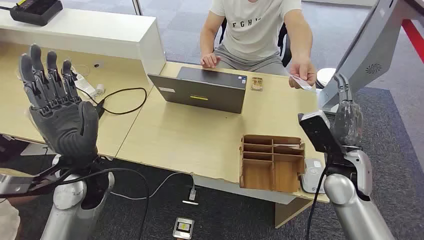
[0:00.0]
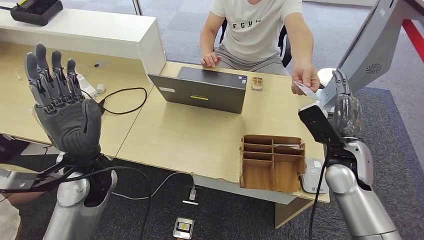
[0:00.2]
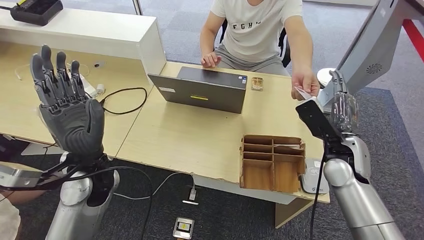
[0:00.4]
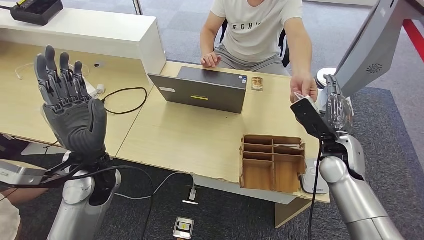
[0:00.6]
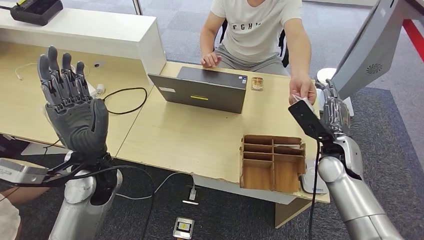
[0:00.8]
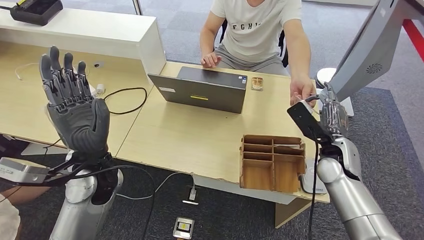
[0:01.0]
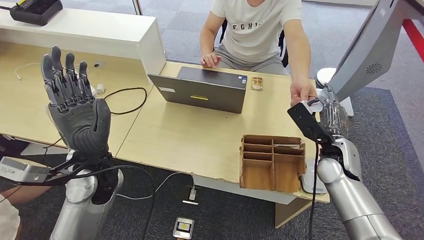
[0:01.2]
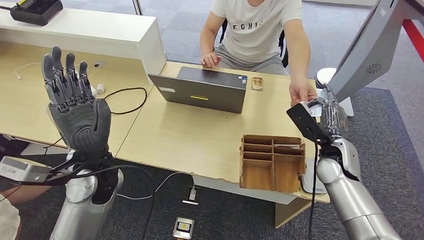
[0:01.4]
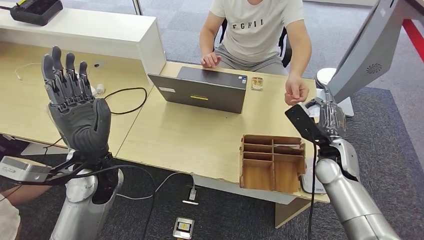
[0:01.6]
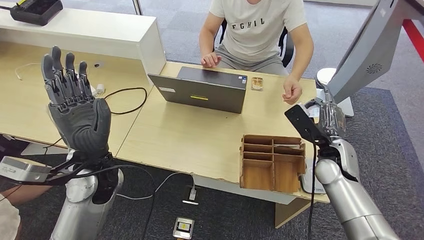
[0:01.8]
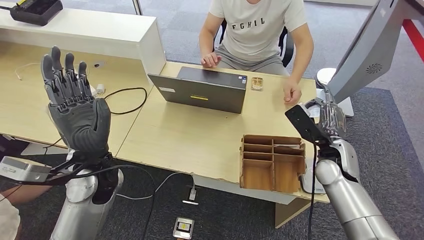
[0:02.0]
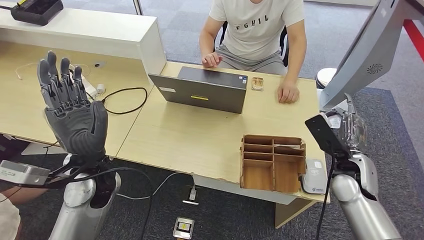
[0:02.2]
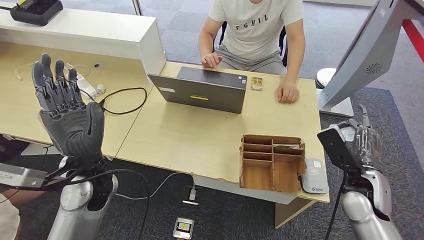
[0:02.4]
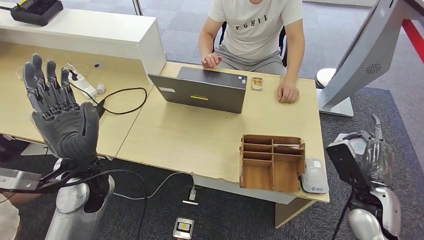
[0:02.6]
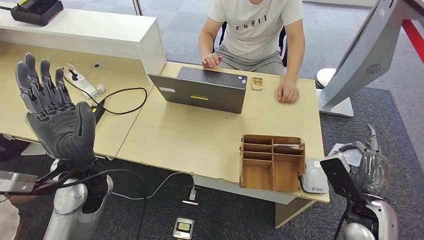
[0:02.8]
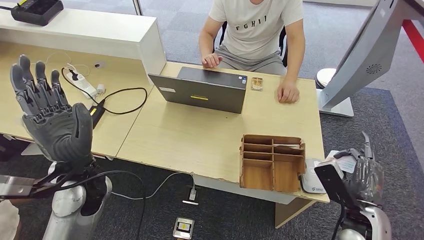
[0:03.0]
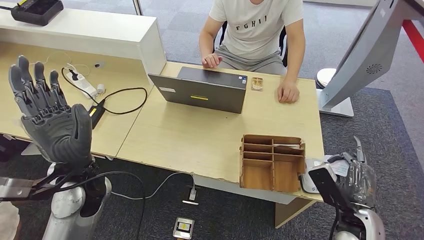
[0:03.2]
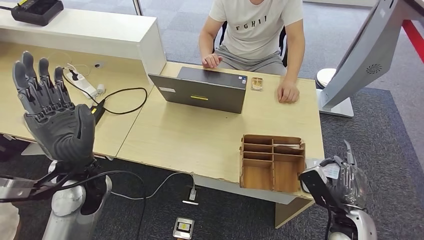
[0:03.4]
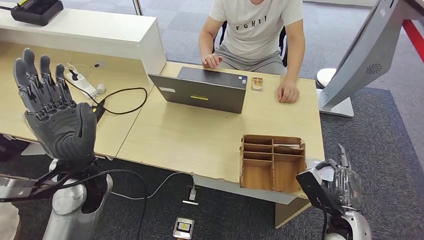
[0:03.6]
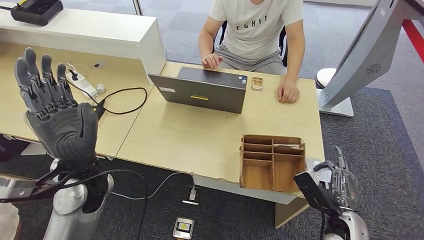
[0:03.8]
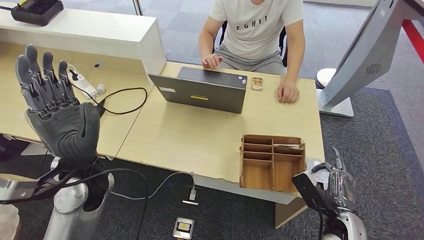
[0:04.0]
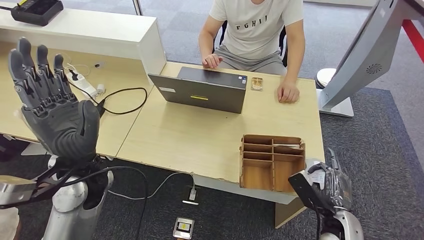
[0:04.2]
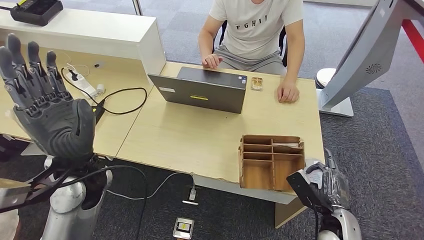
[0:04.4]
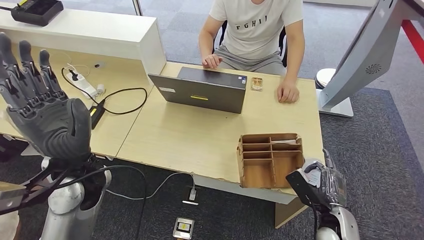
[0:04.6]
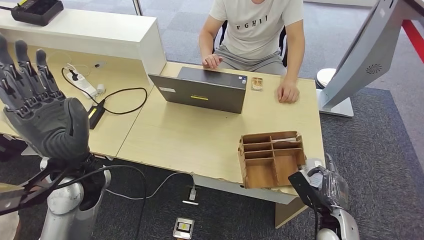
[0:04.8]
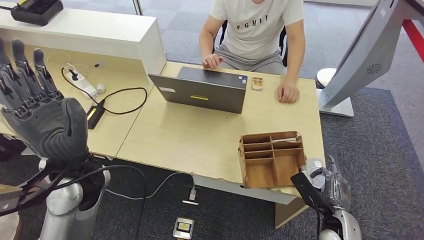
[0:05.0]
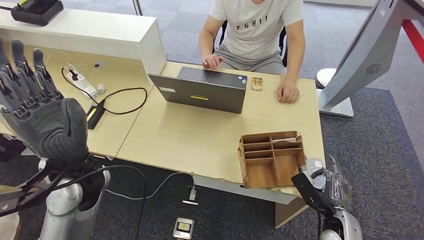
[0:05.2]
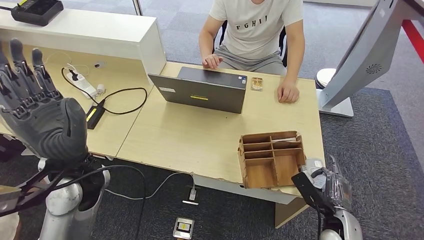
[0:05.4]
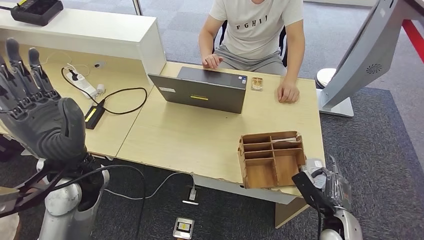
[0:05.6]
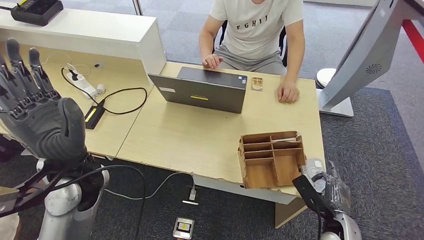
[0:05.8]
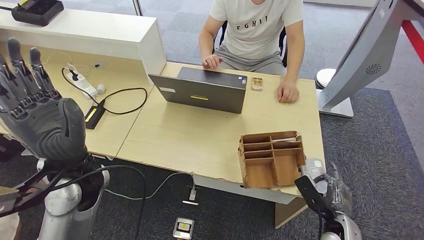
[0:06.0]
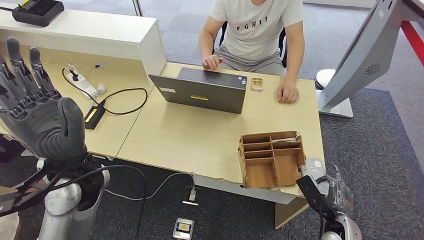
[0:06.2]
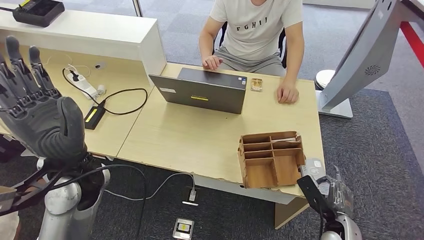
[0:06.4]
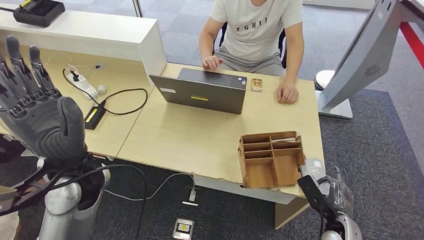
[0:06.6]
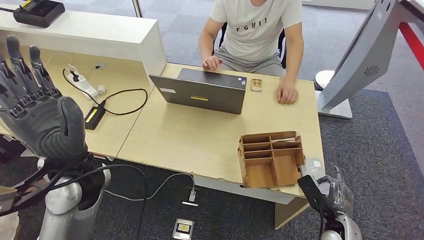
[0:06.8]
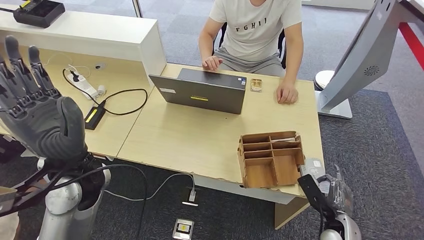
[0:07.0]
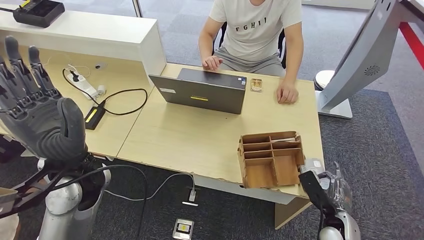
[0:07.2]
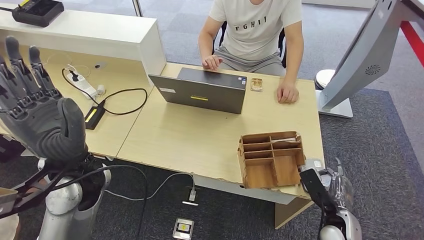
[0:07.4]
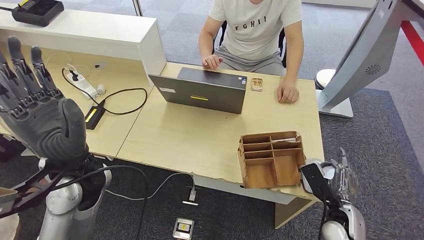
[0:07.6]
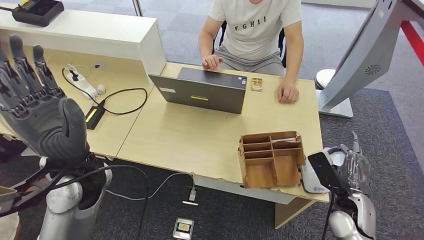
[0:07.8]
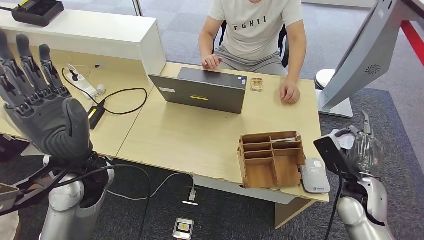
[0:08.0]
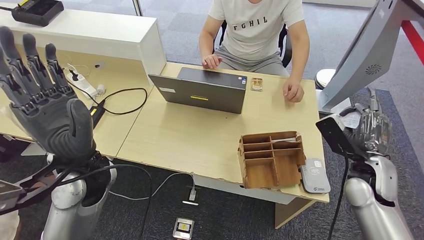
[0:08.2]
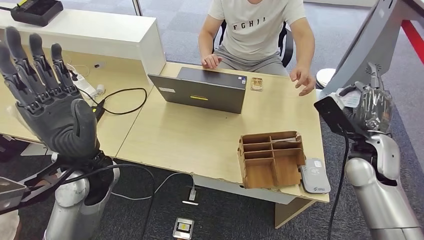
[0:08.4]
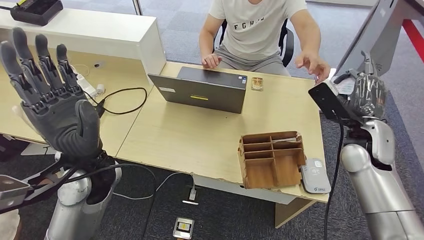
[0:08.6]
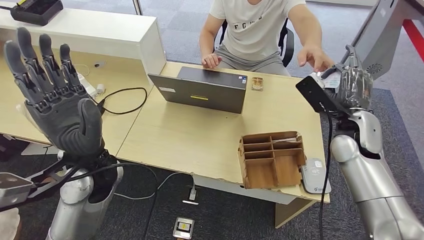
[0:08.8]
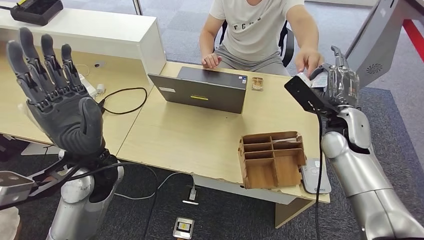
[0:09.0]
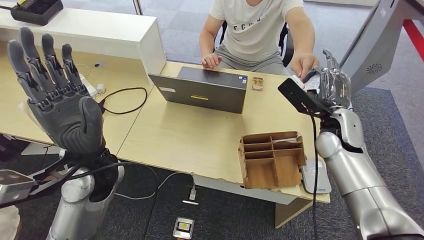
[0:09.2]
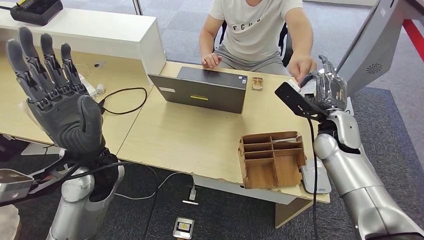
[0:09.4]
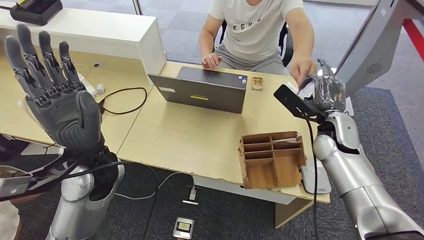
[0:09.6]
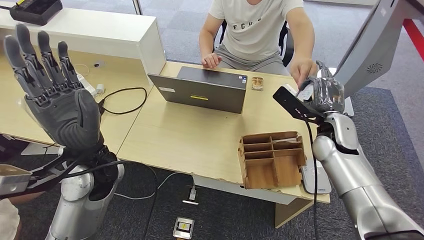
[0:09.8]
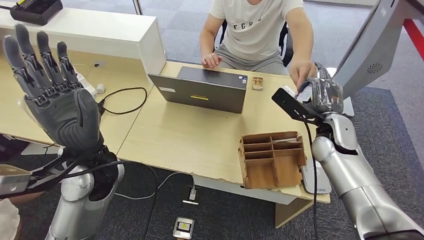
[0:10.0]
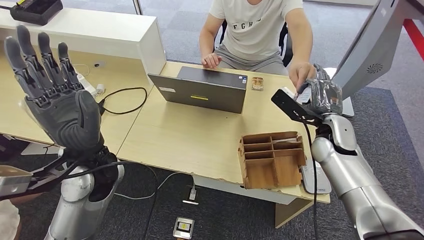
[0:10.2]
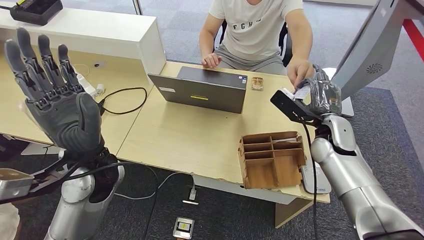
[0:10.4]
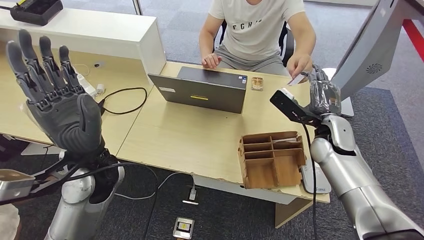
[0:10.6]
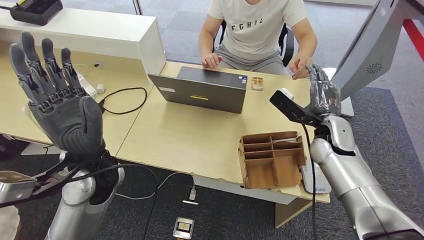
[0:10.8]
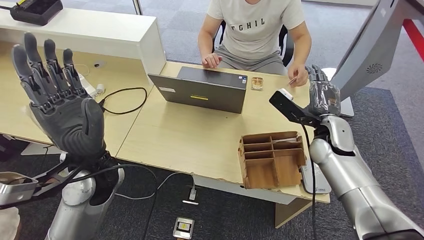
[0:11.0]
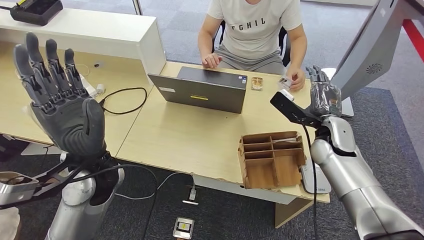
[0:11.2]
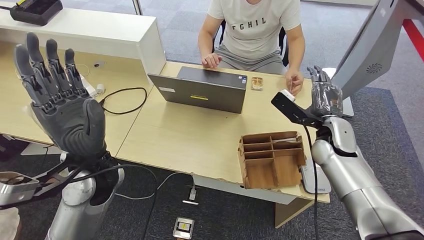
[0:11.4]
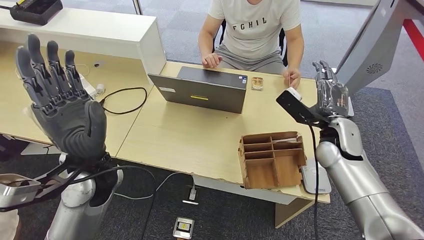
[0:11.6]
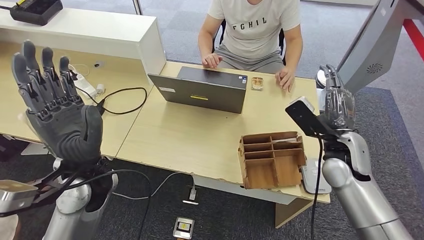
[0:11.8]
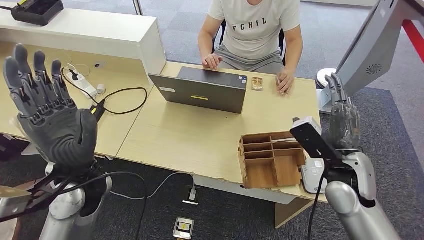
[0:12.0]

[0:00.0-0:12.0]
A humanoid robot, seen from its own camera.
Step, 0:00.0 to 0:01.8: Take the ID card from the person's hand.
Step, 0:02.2 to 0:08.0: Place the ID card on the card reader.
Step, 0:08.2 to 0:11.2: Hand the ID card to the person.
0:01.6 to 0:03.0: The right hand travels backward, to the right and downward by roughly 15 cm.
0:03.0 to 0:04.4: The right hand heads downward, covering approximately 5 cm.
0:04.4 to 0:06.0: The right hand changes place by approximately 5 cm.
0:06.0 to 0:07.6: The hands make only small movements.
0:09.0 to 0:10.4: There are only small adjustments of the hands.

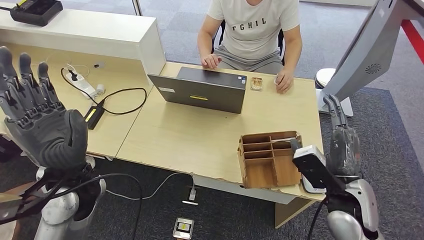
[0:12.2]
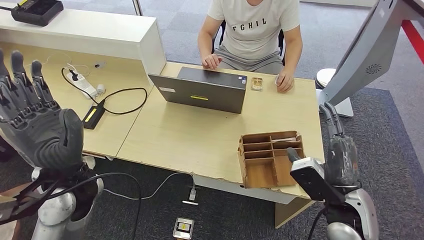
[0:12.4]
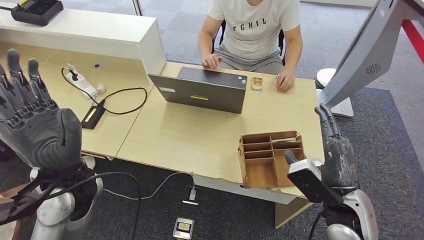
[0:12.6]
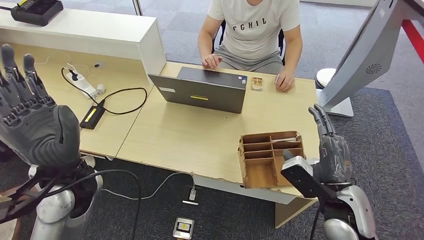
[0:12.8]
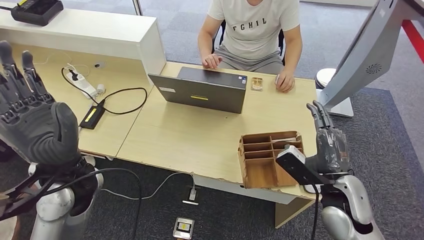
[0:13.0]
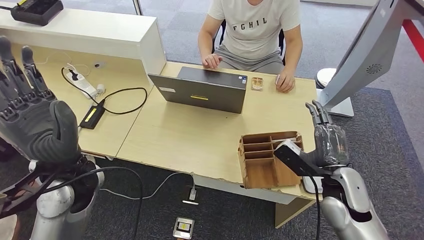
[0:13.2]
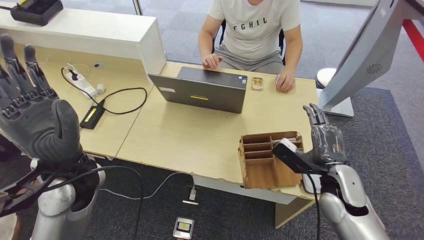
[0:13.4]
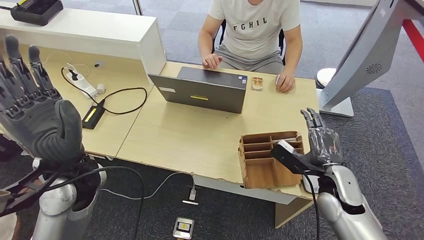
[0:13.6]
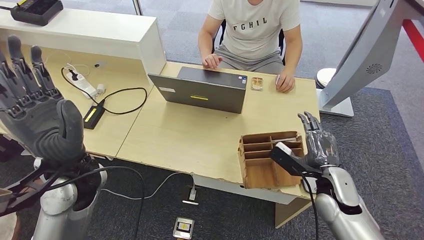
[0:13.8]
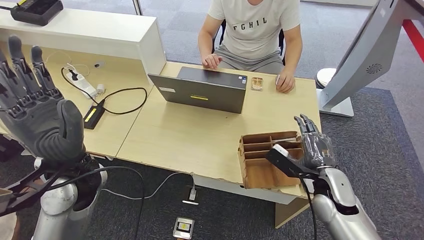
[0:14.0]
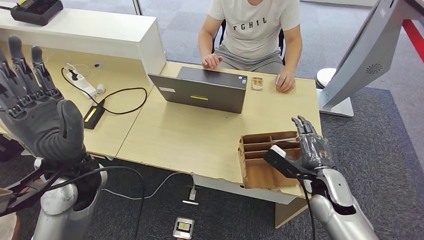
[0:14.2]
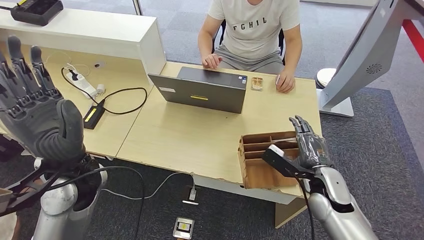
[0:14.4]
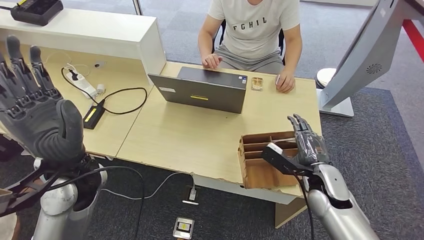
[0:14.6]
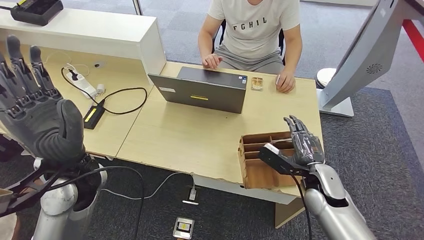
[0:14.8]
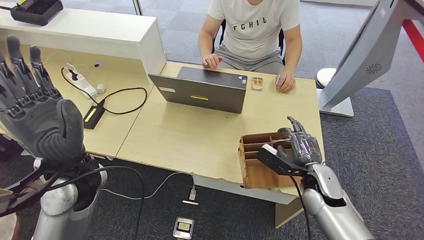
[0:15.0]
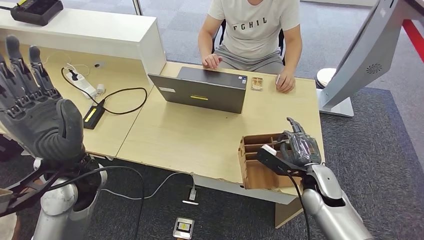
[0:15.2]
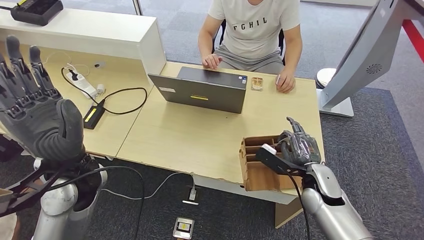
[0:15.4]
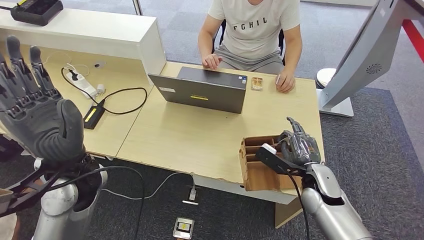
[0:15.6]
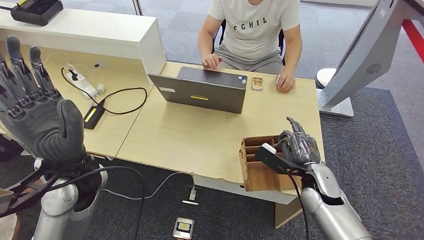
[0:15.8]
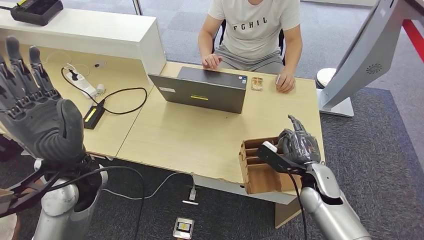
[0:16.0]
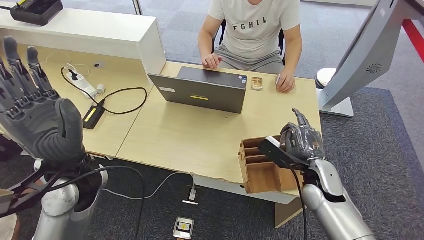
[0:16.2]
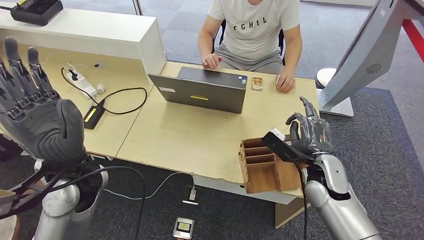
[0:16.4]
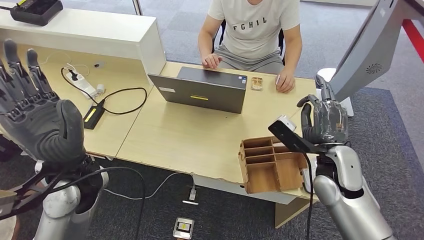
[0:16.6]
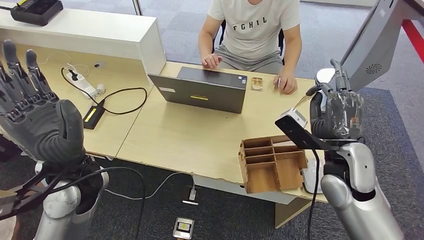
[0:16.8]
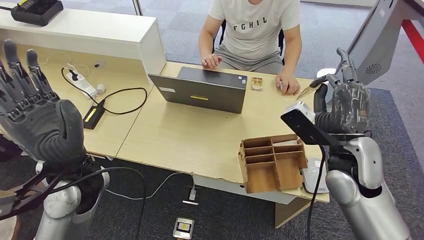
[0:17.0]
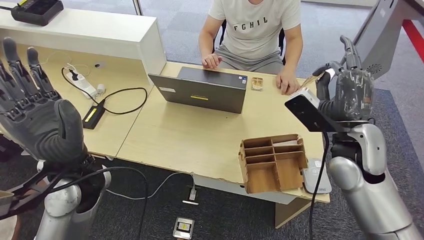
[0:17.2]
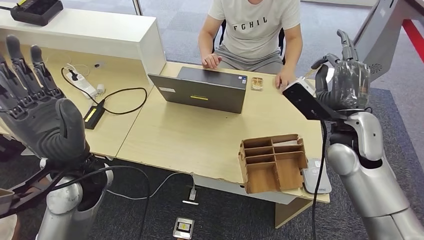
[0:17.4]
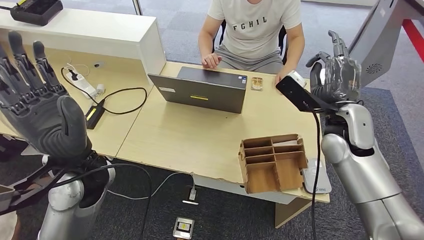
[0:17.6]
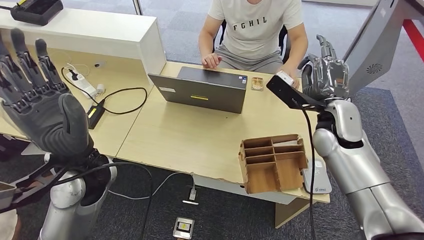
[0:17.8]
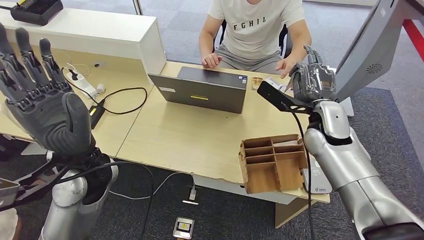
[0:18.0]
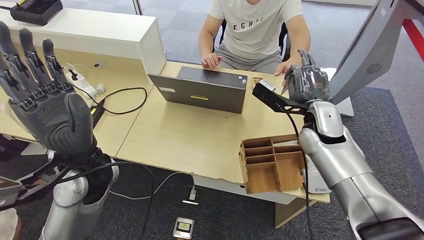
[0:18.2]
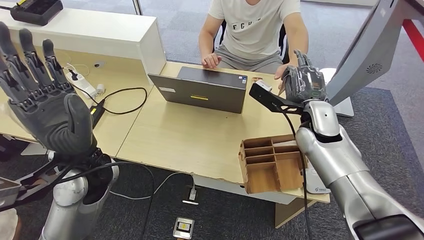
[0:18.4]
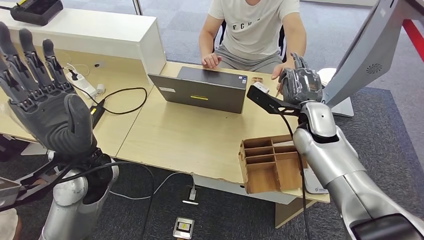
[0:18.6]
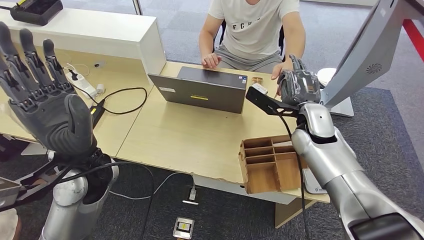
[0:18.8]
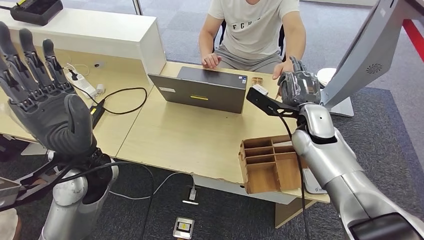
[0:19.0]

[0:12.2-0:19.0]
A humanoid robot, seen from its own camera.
Step, 0:15.0 to 0:17.0: Pick up the room key from the key card box.
0:12.2 to 0:13.6: The right hand moves approximately 5 cm.
0:13.6 to 0:16.2: There are only small adjustments of the hands.
